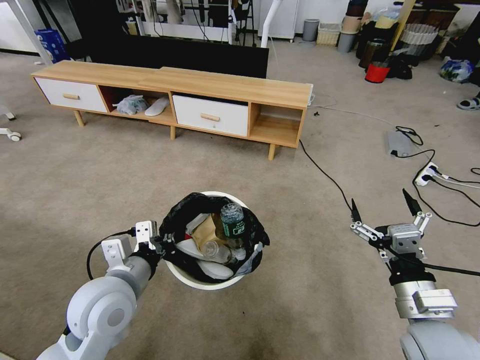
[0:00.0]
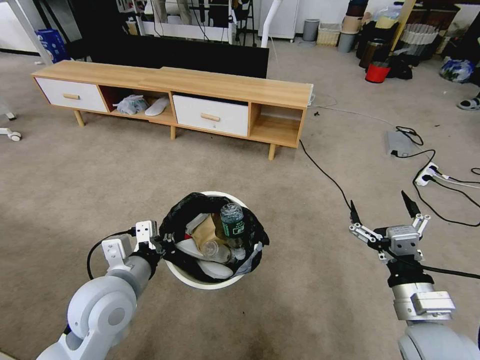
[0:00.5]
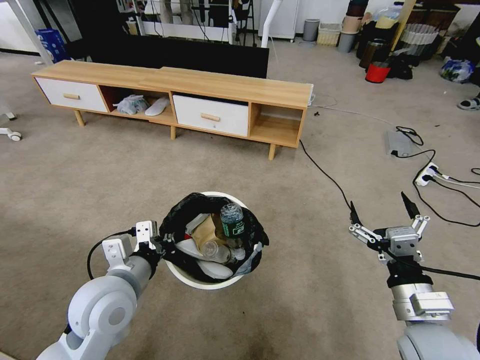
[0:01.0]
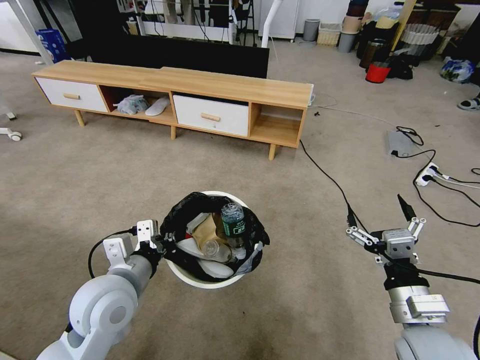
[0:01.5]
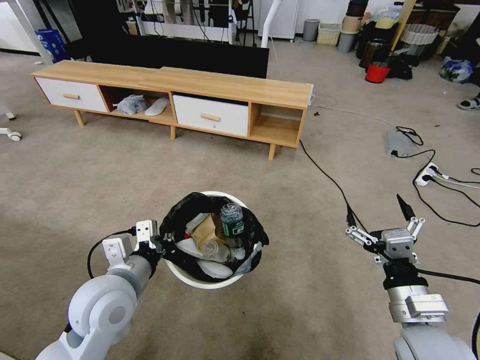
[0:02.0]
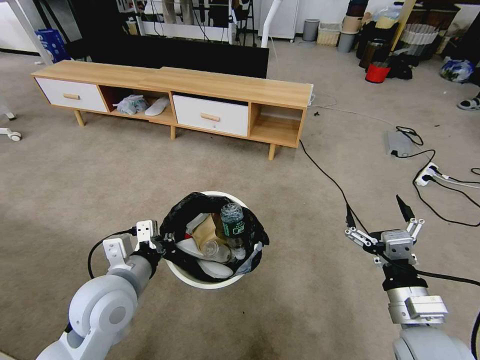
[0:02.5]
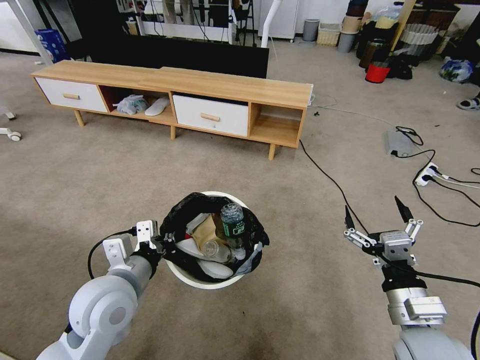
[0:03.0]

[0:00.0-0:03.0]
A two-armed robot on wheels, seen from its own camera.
Task of the whole recording: Pick up the trash bin and place the garbage on the floor into it.
0:00.0 to 0:01.5: Both grippers stay about where they are.
0:01.5 to 0:03.0: Both grippers stay put.
